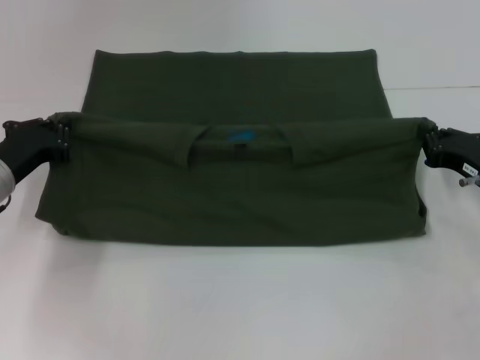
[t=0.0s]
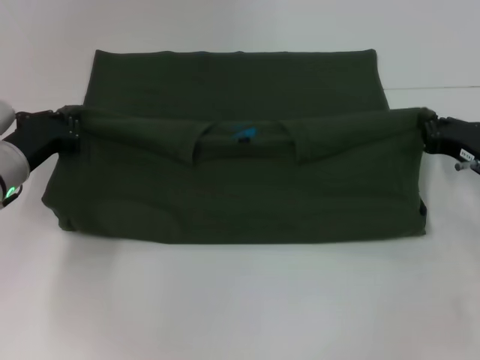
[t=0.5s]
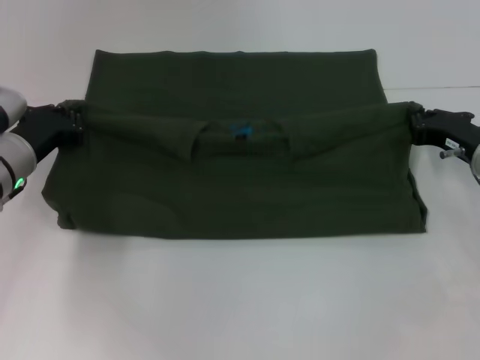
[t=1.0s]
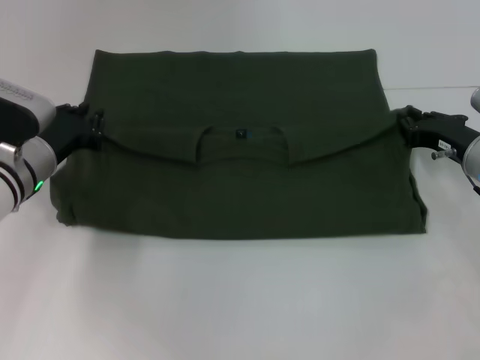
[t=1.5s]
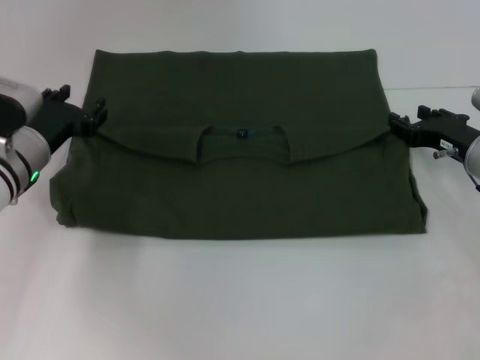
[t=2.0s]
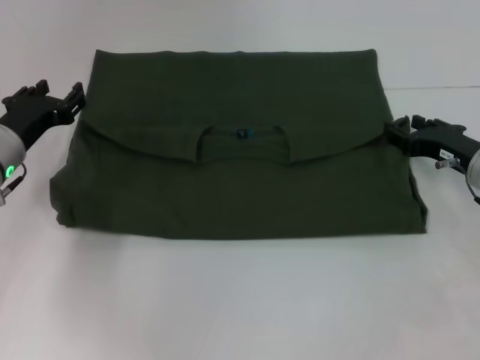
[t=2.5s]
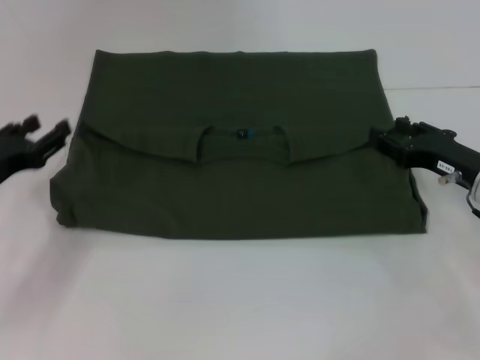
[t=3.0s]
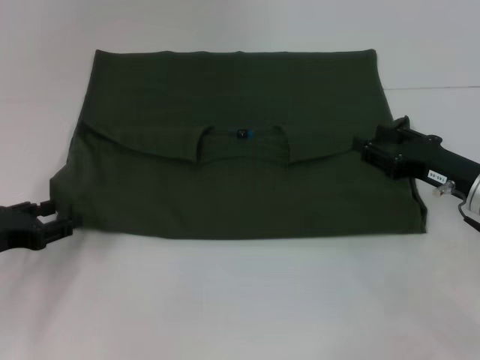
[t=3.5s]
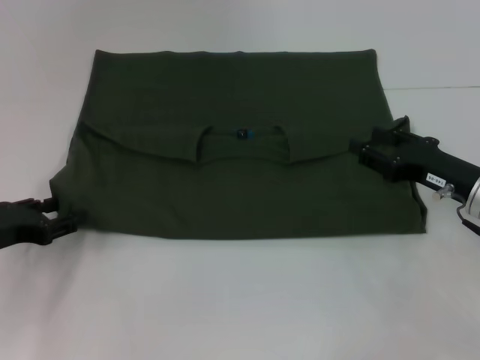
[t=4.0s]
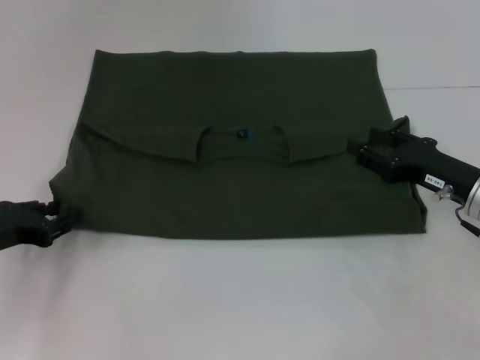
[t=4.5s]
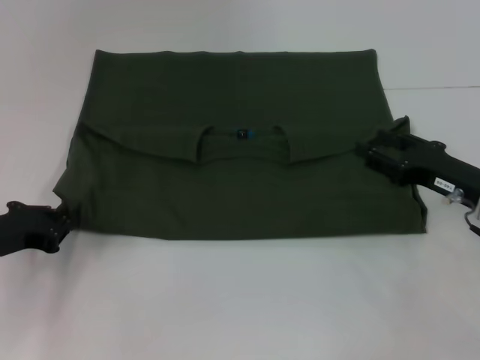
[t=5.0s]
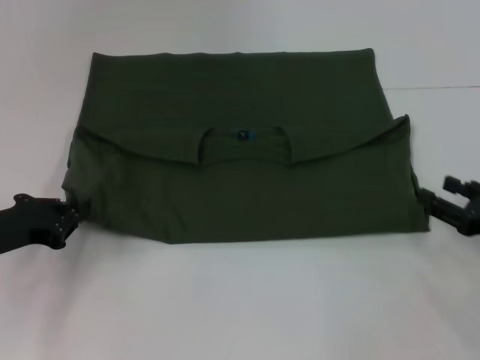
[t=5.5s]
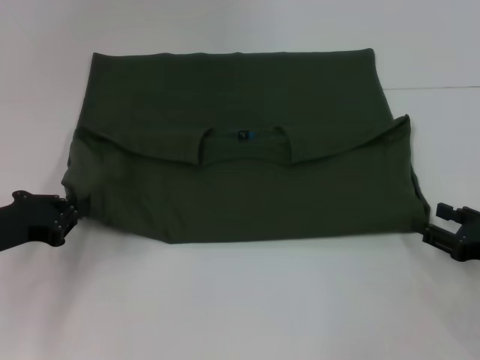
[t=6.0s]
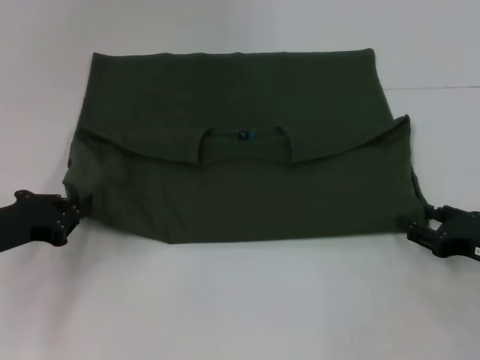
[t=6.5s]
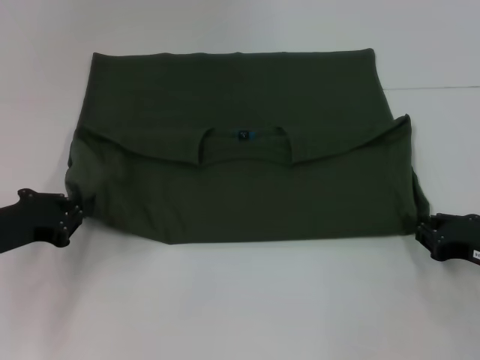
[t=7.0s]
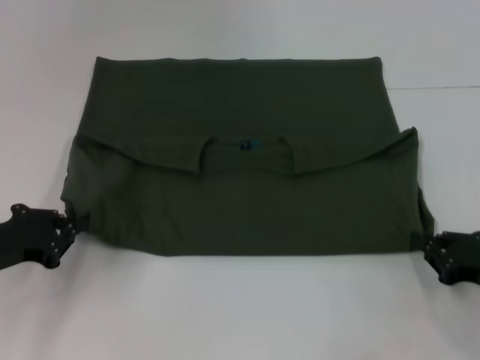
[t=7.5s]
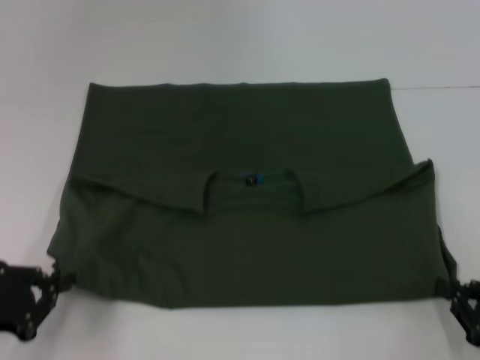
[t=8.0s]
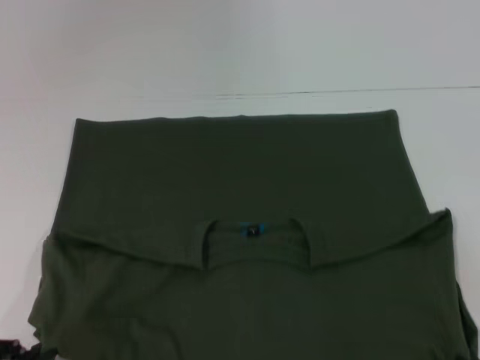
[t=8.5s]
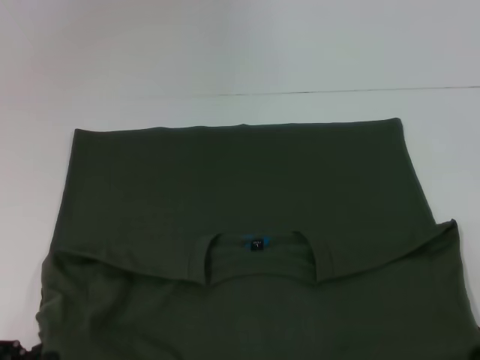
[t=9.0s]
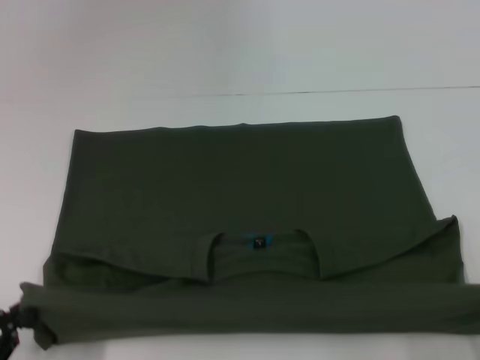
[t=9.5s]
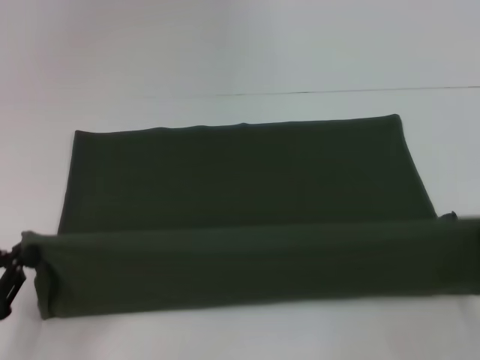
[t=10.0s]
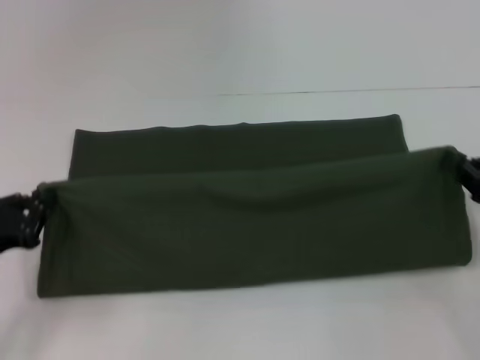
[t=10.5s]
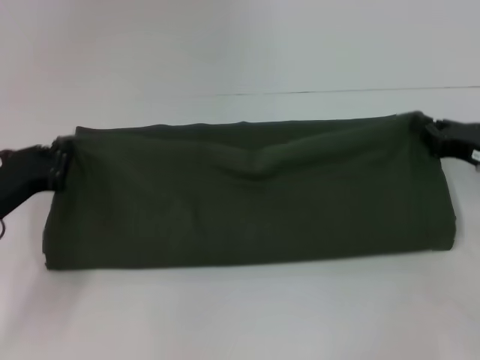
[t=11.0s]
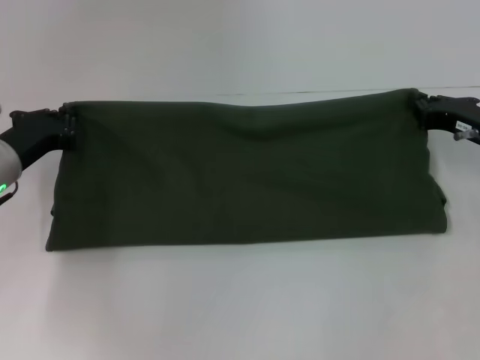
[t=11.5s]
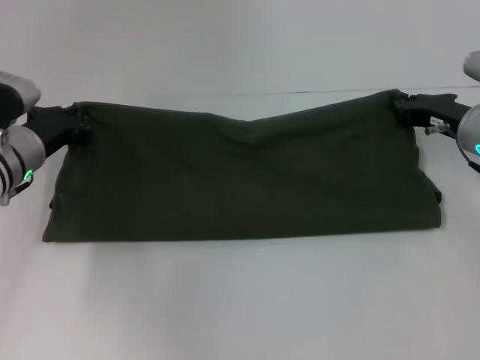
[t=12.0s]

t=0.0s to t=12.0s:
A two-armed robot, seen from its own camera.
Step, t=0.0s to t=2.5s: Fold the clothes with your left hand.
Step, t=0.0s to t=2.5s: Fold the clothes with your right hand.
Step, t=3.0s to t=9.0s: Pull the clothes with your left hand.
Step, t=3.0s to t=9.0s: Pull the clothes with your right hand.
t=0.0s to t=2.0s: The right gripper ends up about 5 cm from where it was, and opens its fingers. Meanwhile the left gripper changes place by roughly 5 cm, and opens its fingers.
t=2.0s to t=4.0s: The left gripper heads backward and to the left, covering approximately 10 cm. Meanwhile the right gripper shifts approximately 5 cm backward.
t=4.0s to t=6.0s: The right gripper moves backward and to the right, approximately 10 cm. The left gripper closes its fingers.
t=6.0s to t=8.0s: The grippers both shift backward by about 10 cm. The right gripper closes its fingers.
t=8.0s to t=10.0s: The right gripper travels backward and back again, some 10 cm each way.
t=10.0s to t=12.0s: The left gripper is displaced forward and to the right by about 25 cm. The right gripper goes some 25 cm forward.

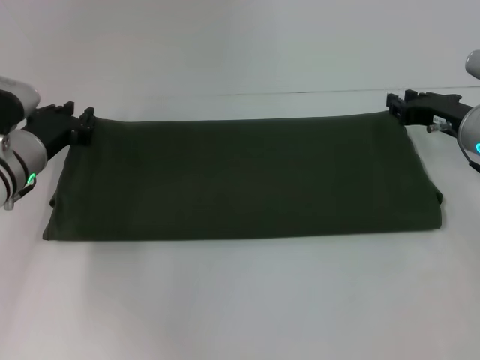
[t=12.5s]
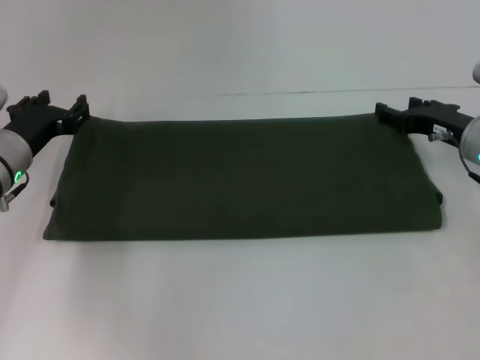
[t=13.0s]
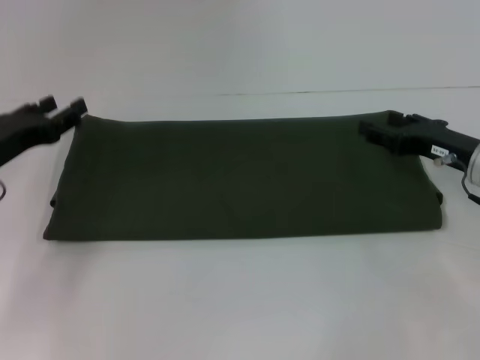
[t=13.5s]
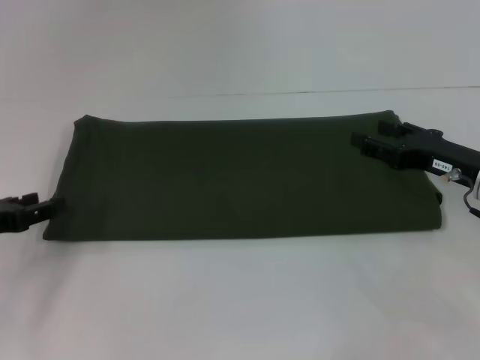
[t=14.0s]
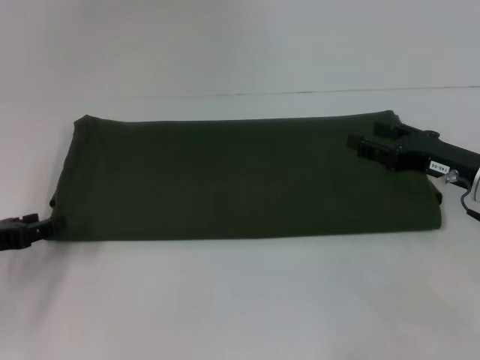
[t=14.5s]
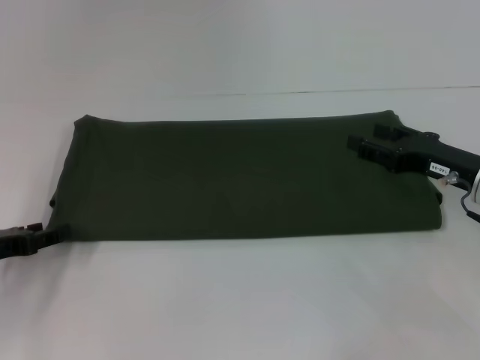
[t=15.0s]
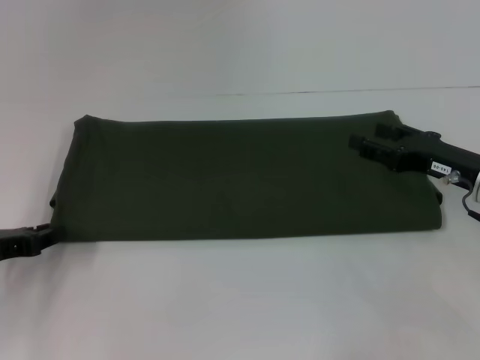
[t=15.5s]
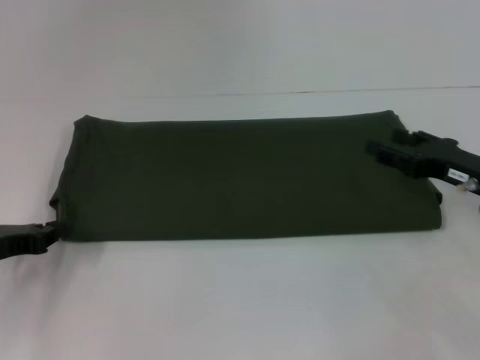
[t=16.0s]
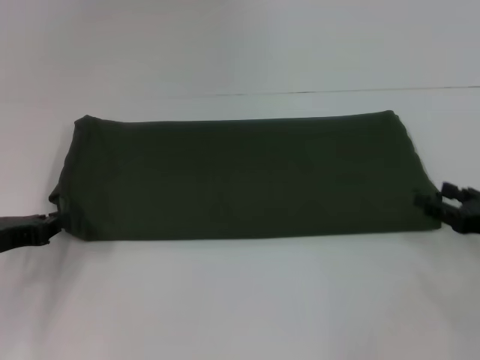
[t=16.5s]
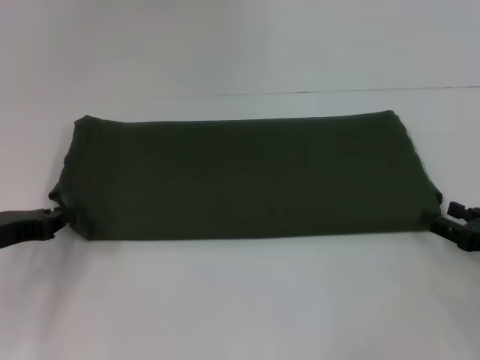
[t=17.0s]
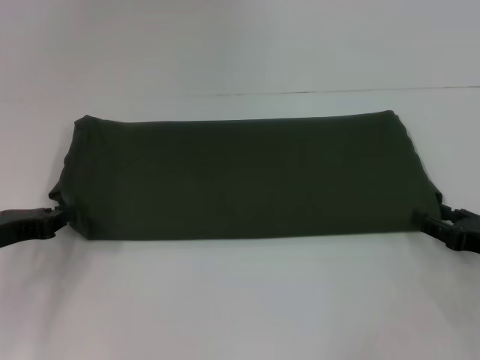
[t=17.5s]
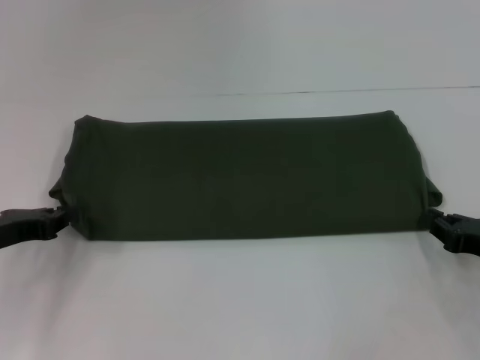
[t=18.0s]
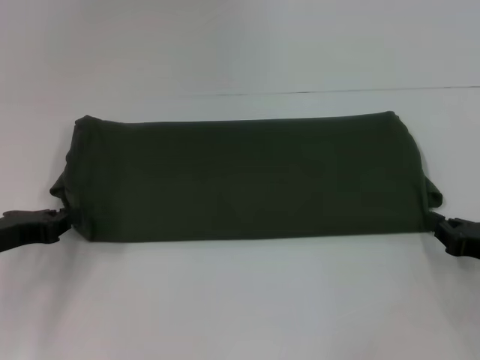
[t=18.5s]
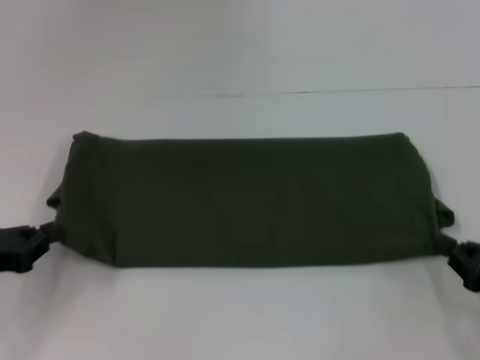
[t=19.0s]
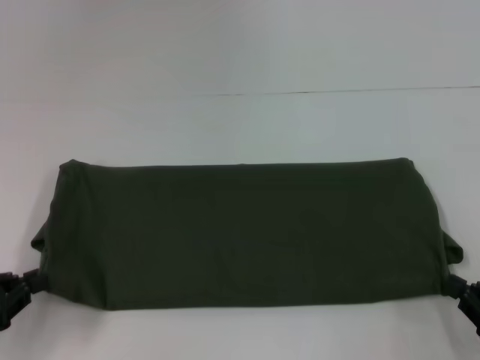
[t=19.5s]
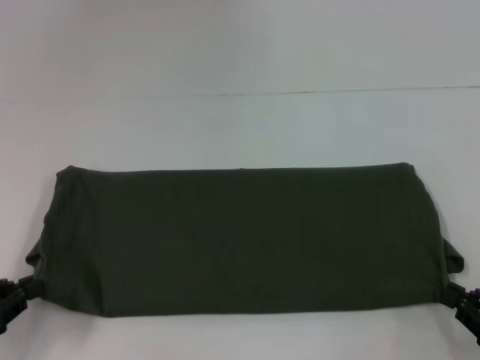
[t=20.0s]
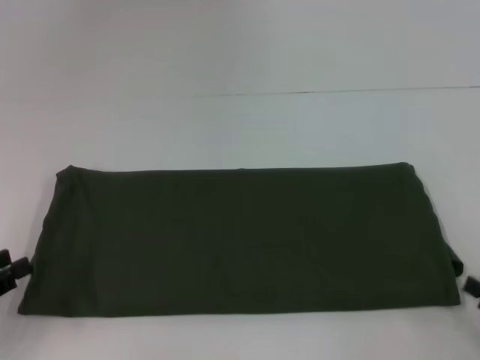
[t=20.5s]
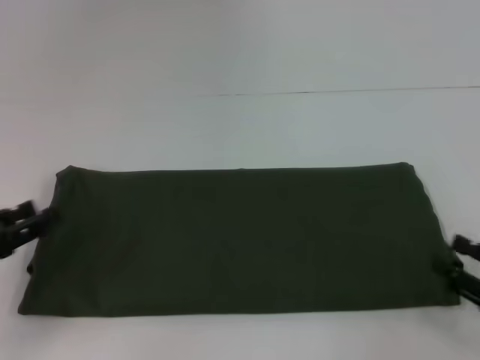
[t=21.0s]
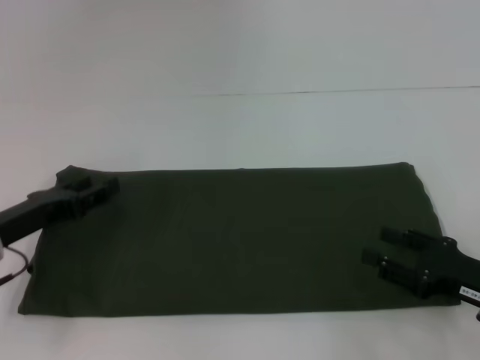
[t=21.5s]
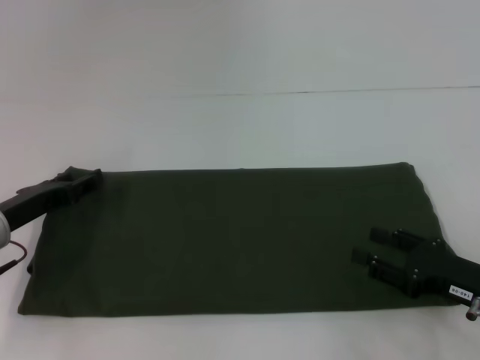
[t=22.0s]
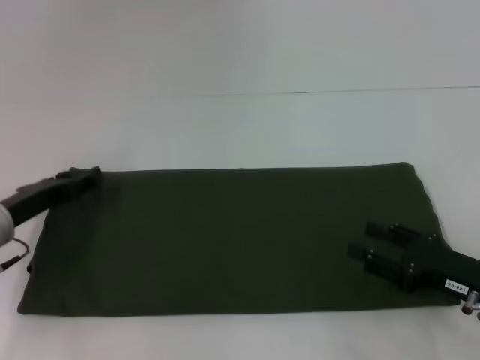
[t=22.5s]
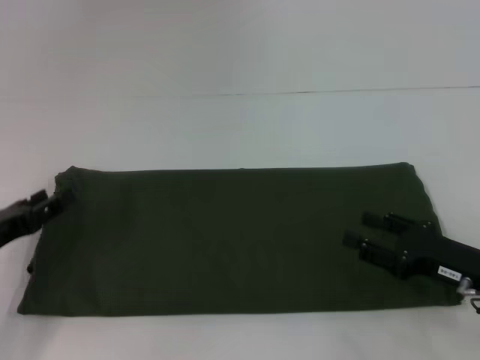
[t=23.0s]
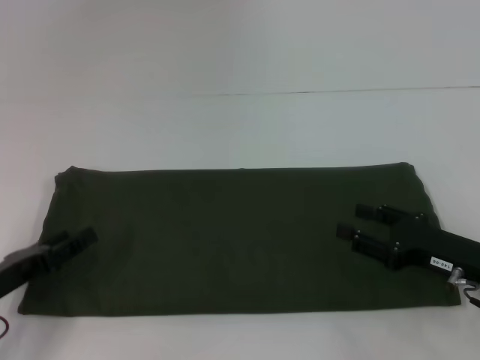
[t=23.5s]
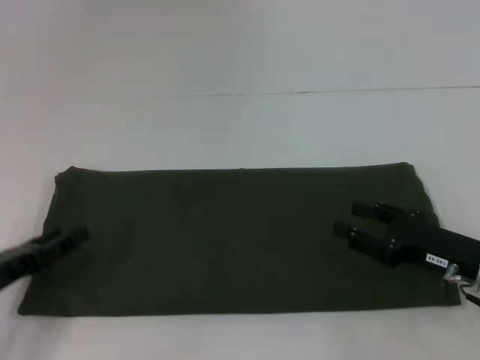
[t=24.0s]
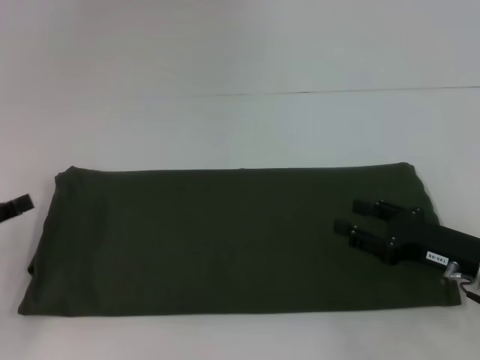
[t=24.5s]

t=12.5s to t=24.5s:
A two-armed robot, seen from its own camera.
t=12.5s to t=14.5s: The right gripper goes some 5 cm backward, and opens its fingers; the left gripper travels backward and to the left by approximately 15 cm, and opens its fingers.
t=14.5s to t=16.5s: The right gripper is displaced backward and to the right by about 10 cm.
t=16.5s to t=18.5s: The right gripper closes up.
t=18.5s to t=20.5s: The grippers both shift backward by some 10 cm.
t=20.5s to t=22.5s: The right gripper heads forward and to the left, covering about 10 cm. The left gripper goes about 15 cm forward and to the right, and opens up.
t=22.5s to t=24.5s: The left gripper shifts approximately 10 cm to the left, backward and upward.

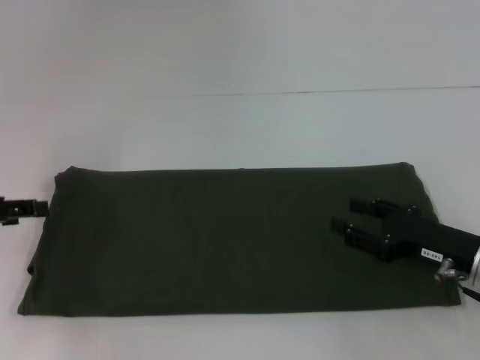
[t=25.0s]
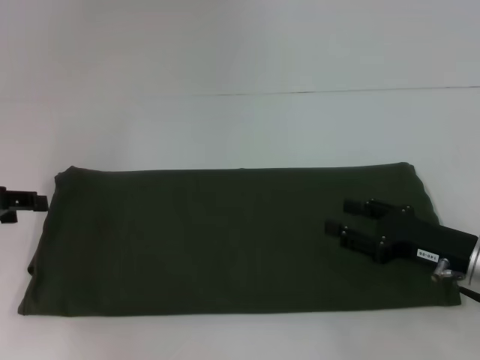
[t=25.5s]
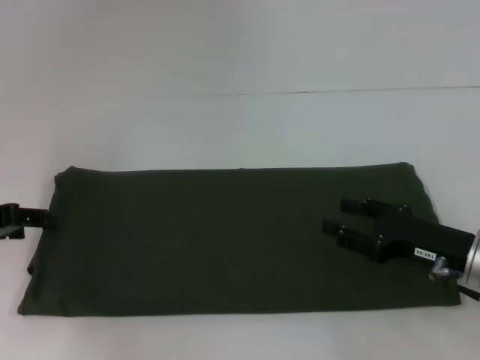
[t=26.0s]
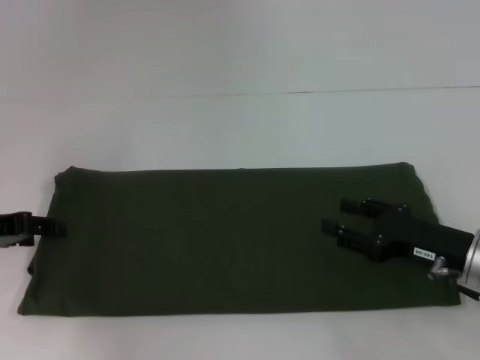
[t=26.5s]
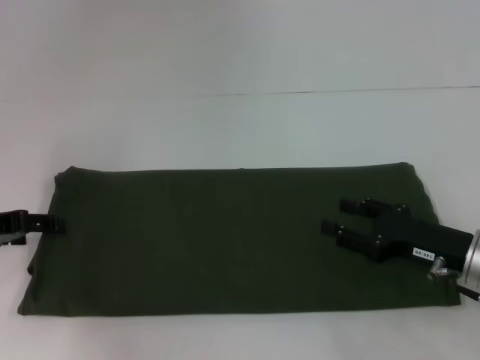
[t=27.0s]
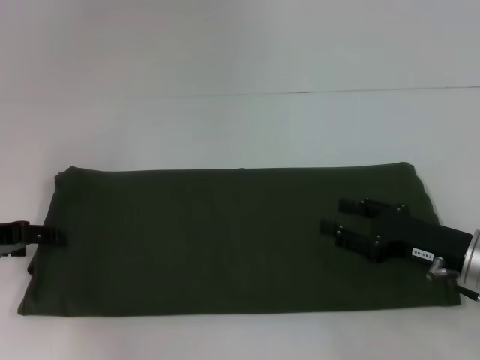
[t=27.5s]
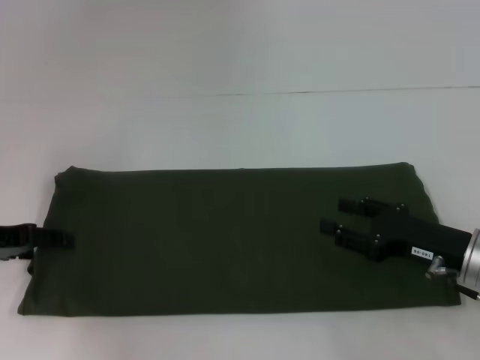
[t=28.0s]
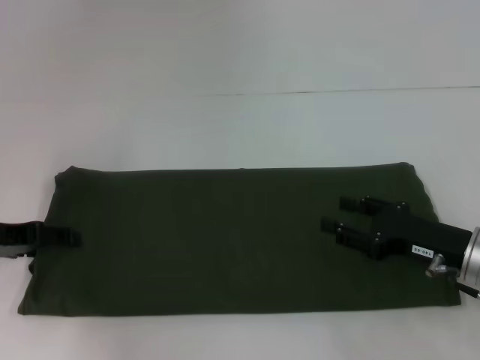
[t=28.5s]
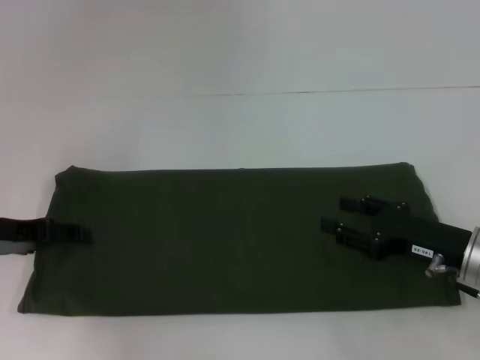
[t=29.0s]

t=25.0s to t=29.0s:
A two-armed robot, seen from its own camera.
t=25.0s to t=29.0s: The grippers stay close to where they were, moving slightly.